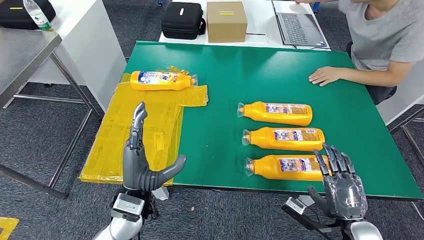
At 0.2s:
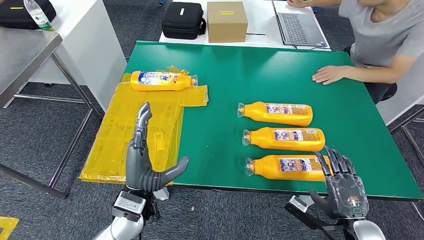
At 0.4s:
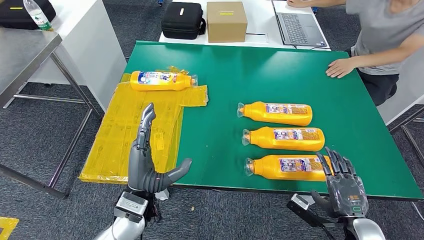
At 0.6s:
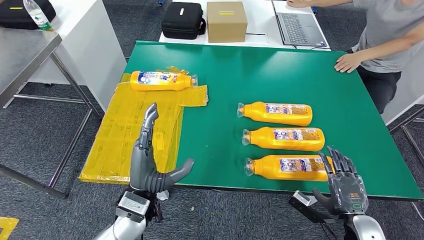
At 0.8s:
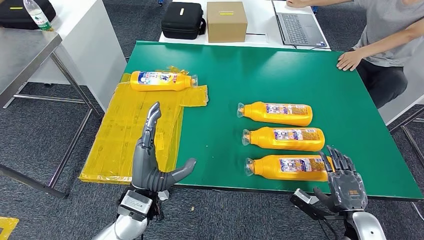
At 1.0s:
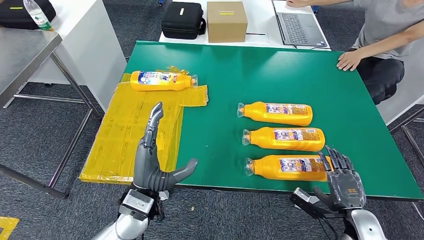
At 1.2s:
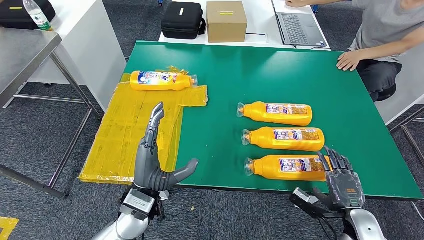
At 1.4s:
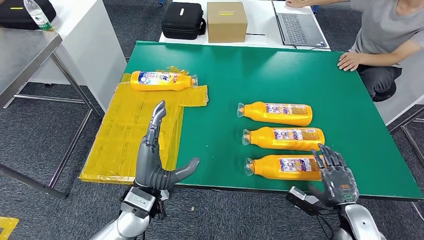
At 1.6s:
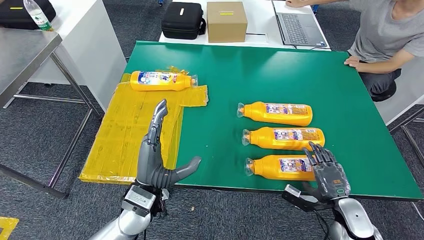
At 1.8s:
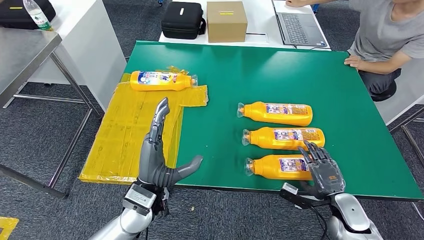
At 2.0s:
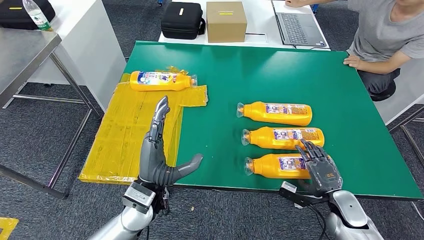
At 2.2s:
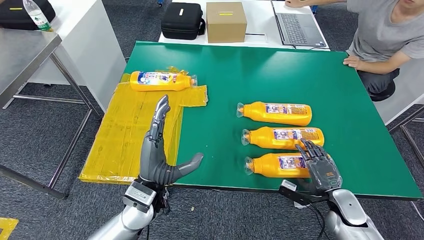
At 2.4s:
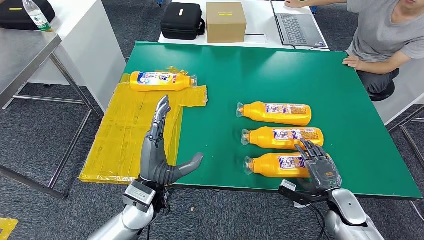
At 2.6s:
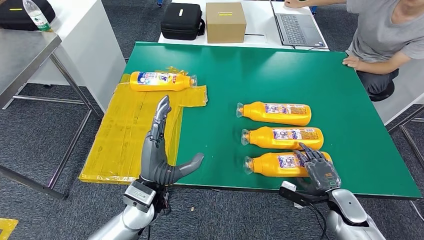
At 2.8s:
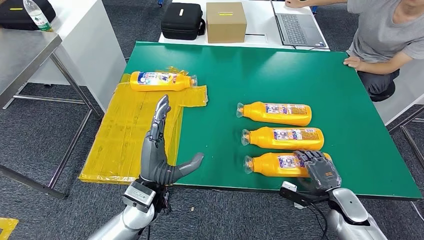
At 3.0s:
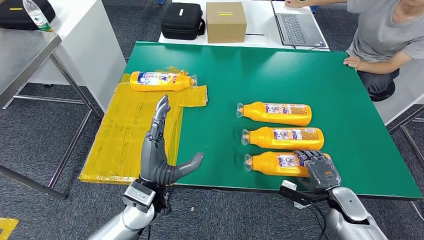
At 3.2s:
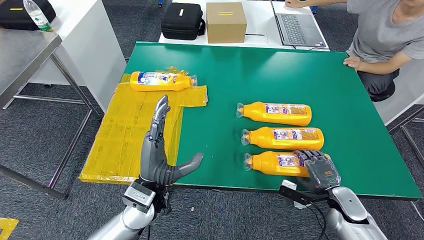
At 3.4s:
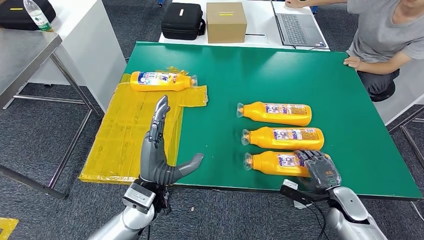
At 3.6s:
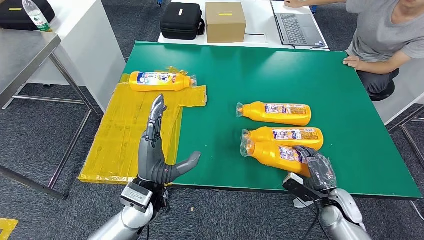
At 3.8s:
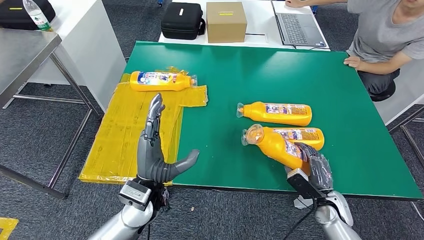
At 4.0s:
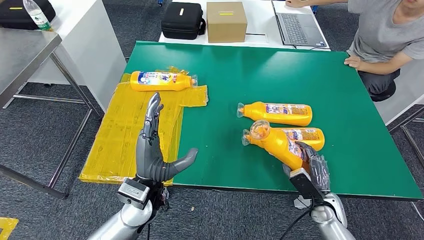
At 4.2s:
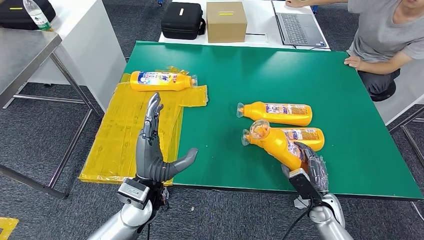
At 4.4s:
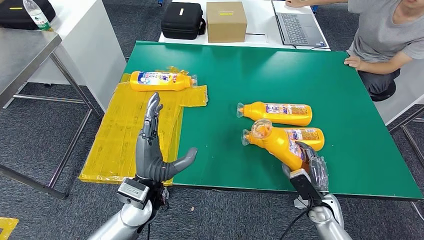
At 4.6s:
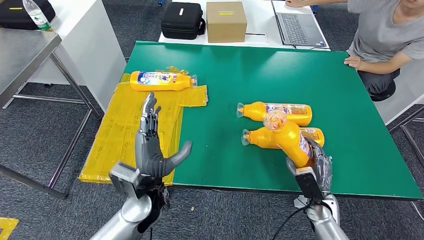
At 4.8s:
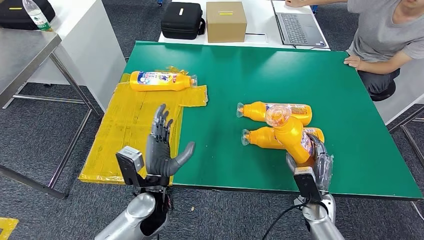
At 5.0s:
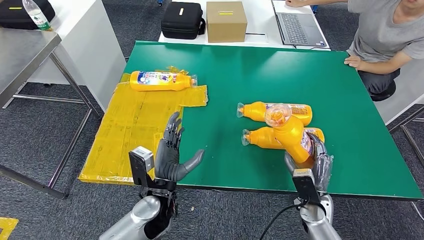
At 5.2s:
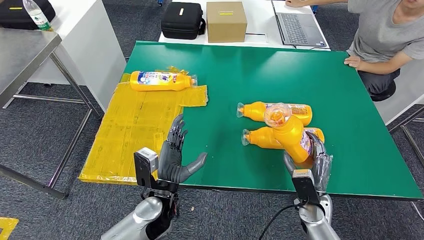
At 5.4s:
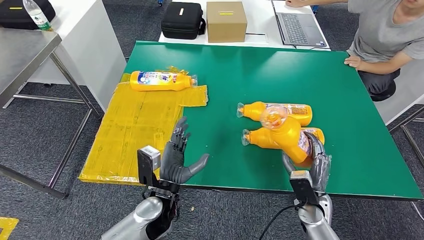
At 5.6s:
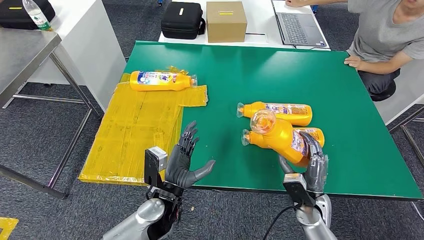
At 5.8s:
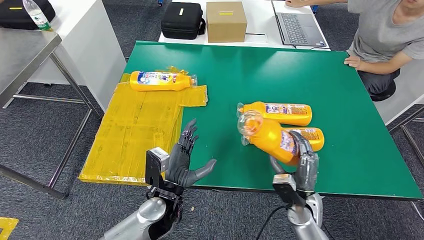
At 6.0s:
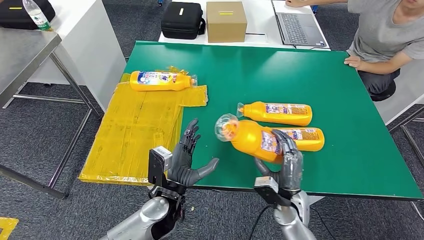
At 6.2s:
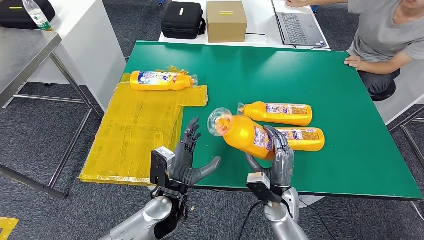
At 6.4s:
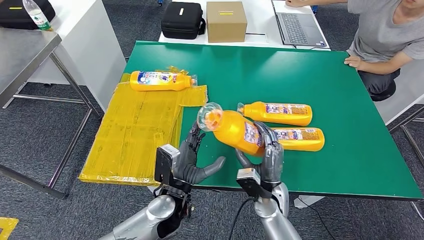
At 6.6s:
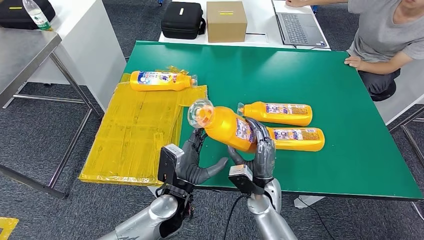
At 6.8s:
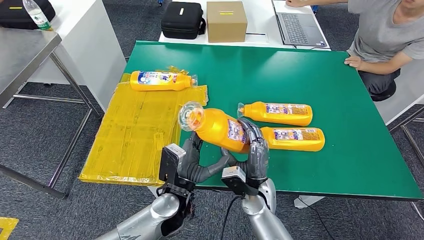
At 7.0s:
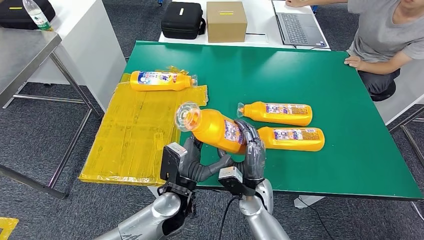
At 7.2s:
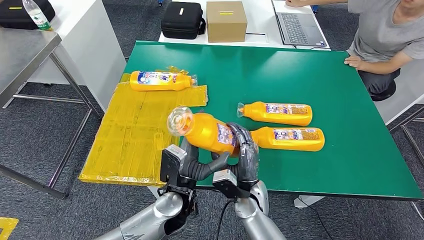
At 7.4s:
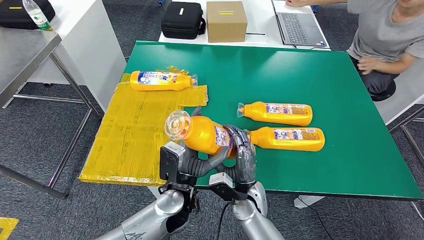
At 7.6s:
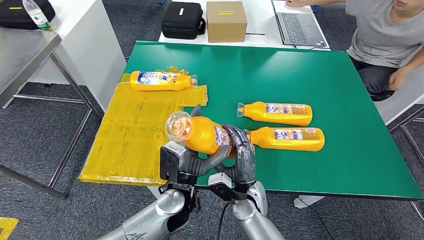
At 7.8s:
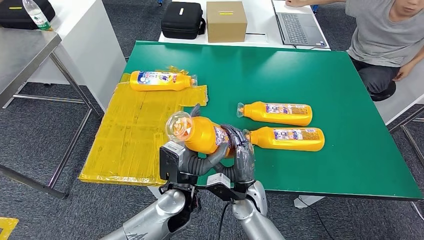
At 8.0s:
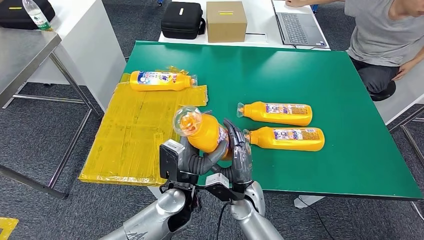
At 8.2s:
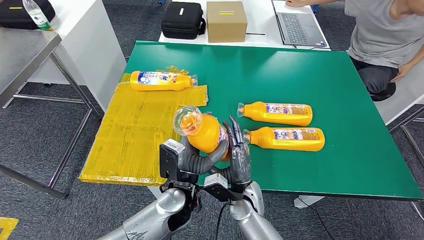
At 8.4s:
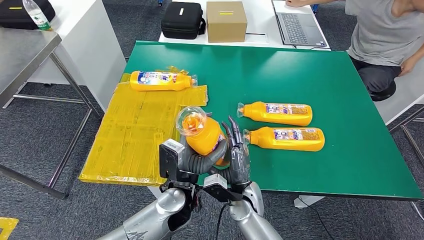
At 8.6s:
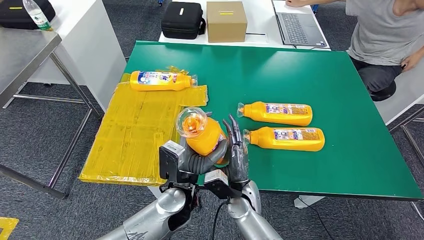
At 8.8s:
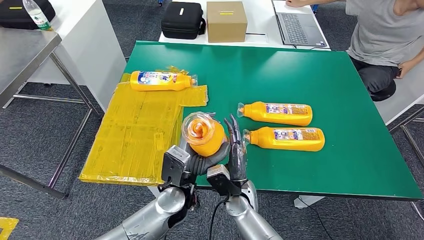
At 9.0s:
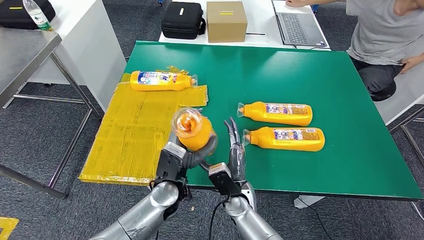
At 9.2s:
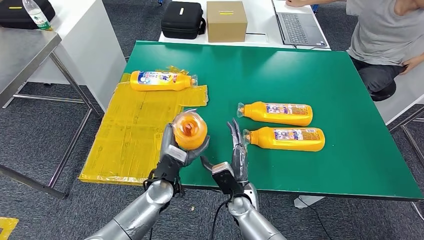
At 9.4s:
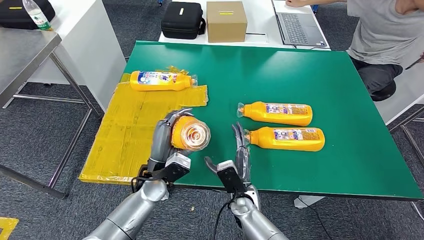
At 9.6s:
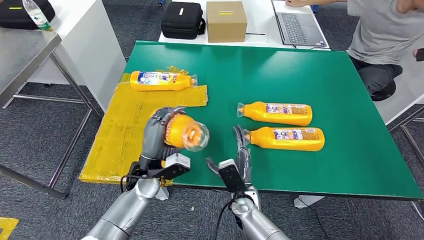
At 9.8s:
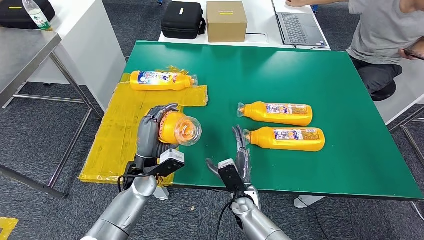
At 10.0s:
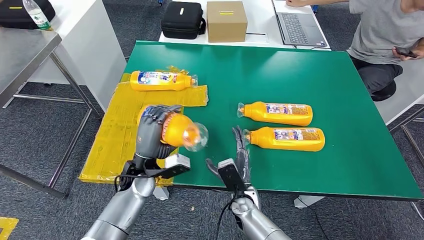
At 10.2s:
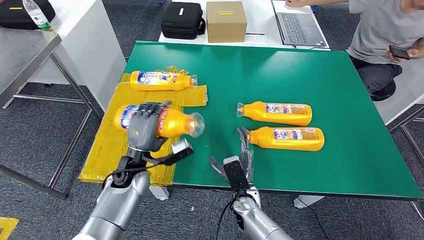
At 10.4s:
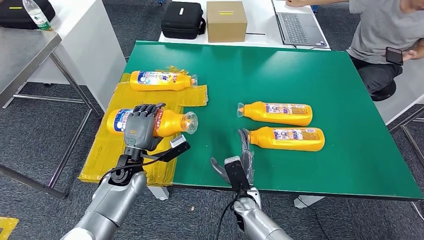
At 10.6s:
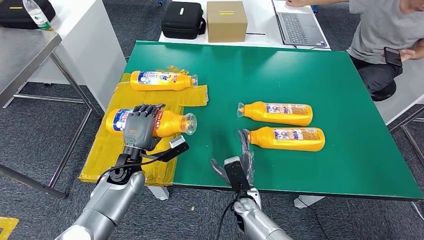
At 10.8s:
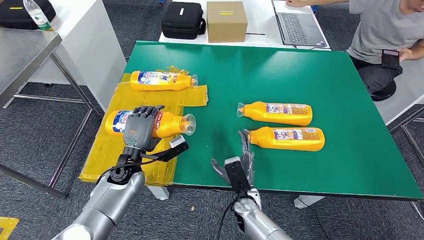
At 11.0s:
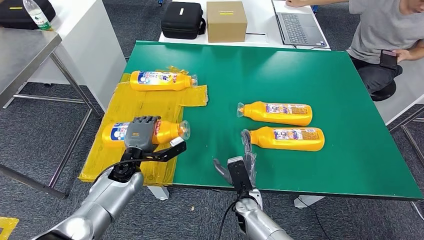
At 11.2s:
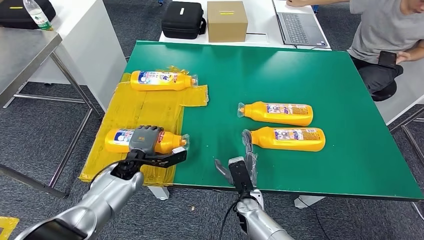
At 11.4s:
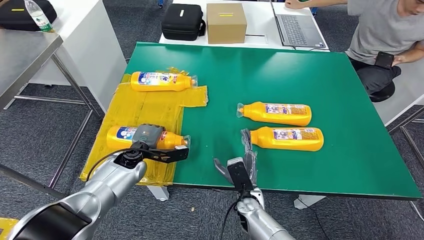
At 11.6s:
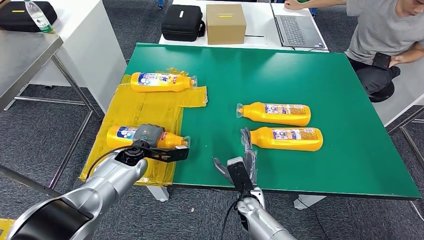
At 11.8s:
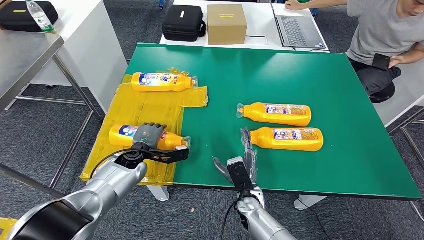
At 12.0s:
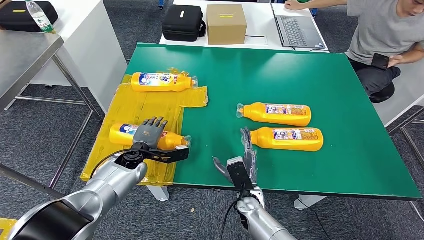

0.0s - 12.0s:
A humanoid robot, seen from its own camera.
Step, 0.0s - 5.0s: Pick up the fast-moving consumer goods bottle from the table.
0.0s - 1.6s: The right hand travels forward and downward by roughly 10 cm.
1.6s - 3.0s: There are only small adjustments of the hands.
3.0s - 4.4s: The right hand shifts by approximately 5 cm.
4.4s - 6.0s: The right hand goes approximately 10 cm to the left. Meanwhile the left hand changes place by about 5 cm.
6.0s - 7.6s: The right hand shifts approximately 10 cm to the left.
7.6s - 9.0s: The hands stay close to where they were, moving slightly.
9.0s - 10.4s: The left hand heads to the left and forward, covering roughly 15 cm.

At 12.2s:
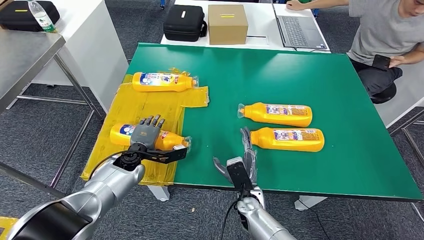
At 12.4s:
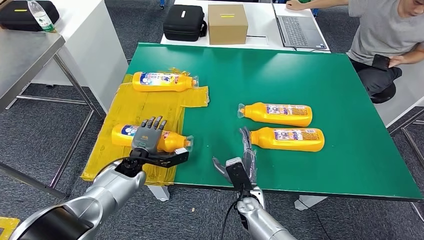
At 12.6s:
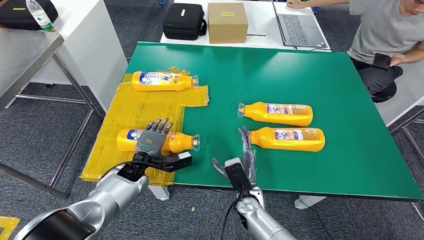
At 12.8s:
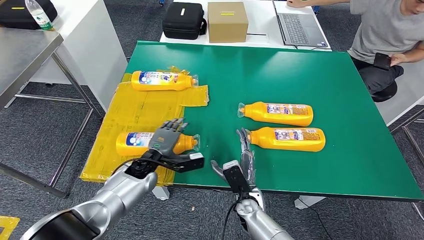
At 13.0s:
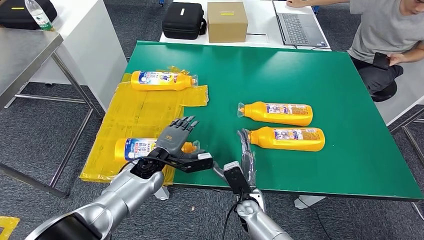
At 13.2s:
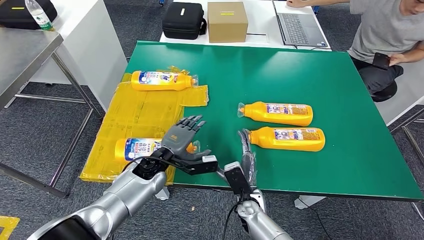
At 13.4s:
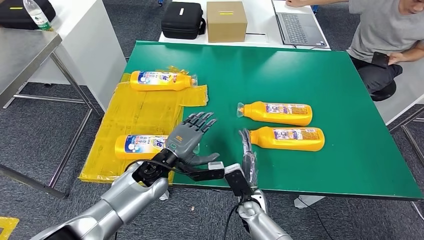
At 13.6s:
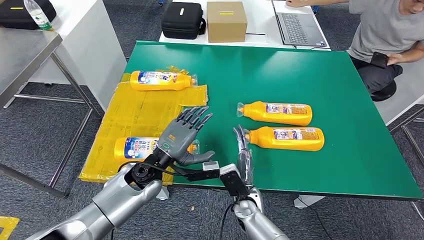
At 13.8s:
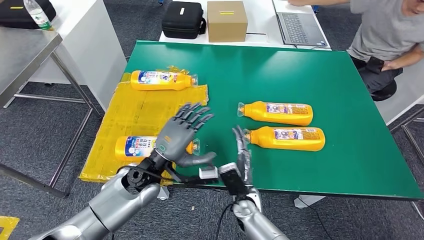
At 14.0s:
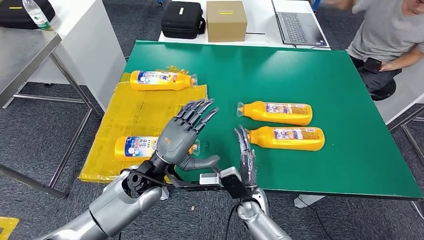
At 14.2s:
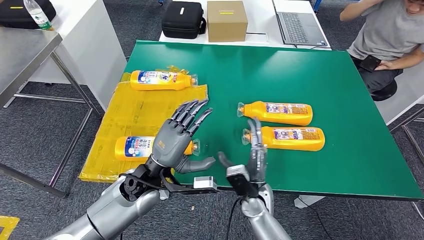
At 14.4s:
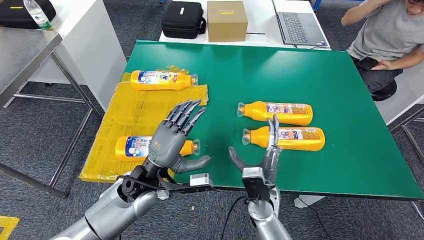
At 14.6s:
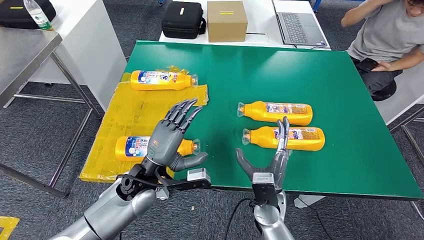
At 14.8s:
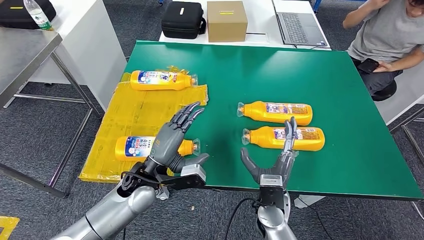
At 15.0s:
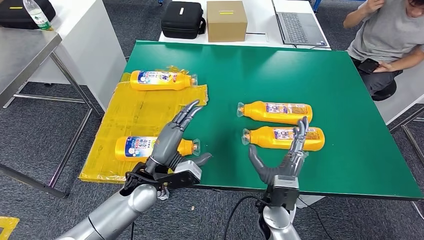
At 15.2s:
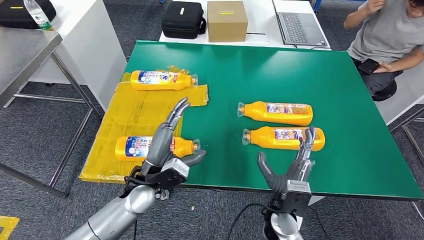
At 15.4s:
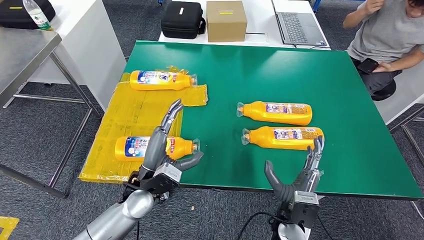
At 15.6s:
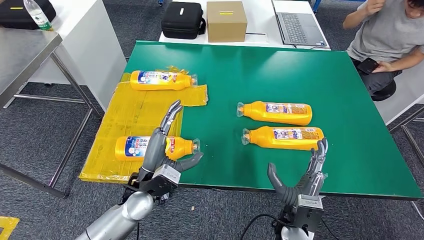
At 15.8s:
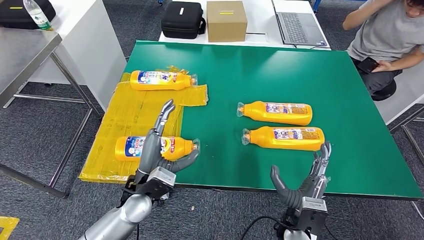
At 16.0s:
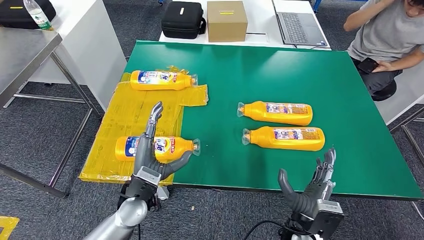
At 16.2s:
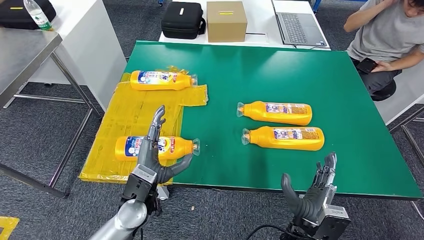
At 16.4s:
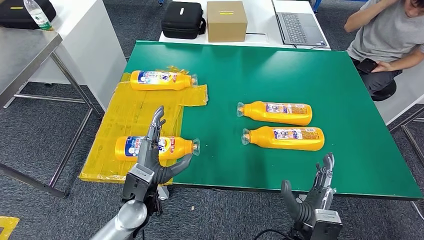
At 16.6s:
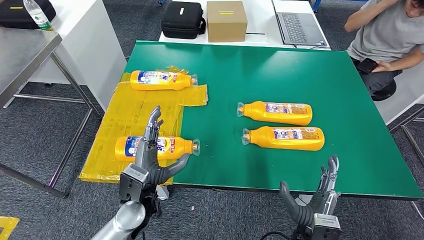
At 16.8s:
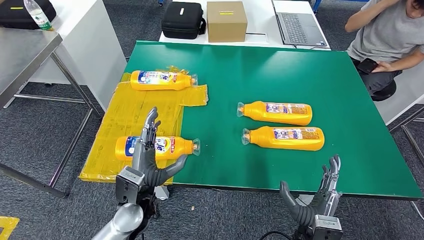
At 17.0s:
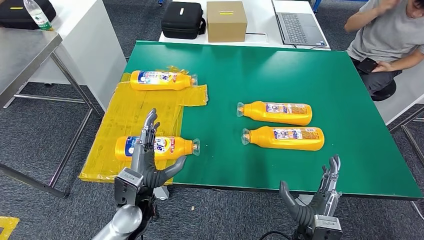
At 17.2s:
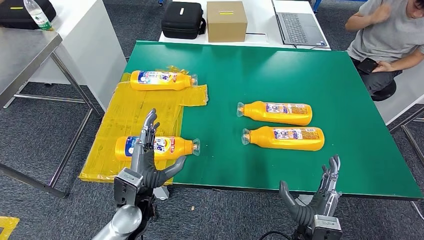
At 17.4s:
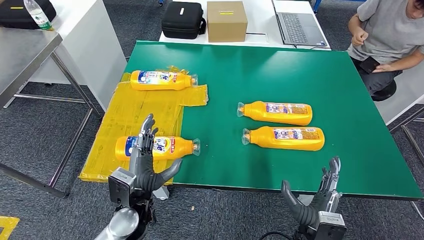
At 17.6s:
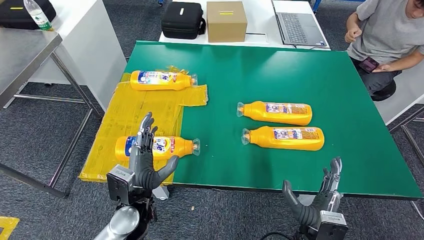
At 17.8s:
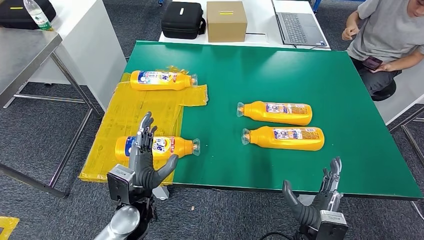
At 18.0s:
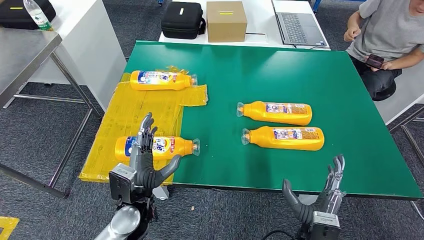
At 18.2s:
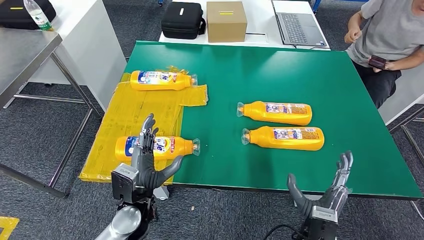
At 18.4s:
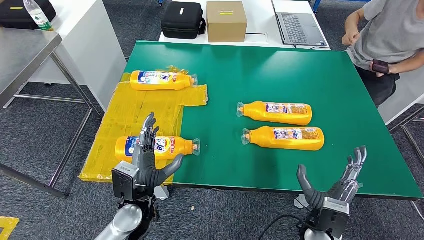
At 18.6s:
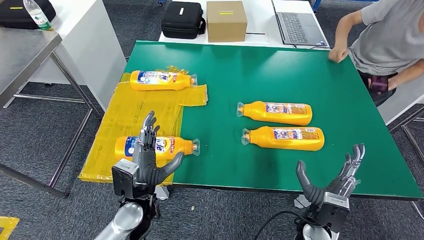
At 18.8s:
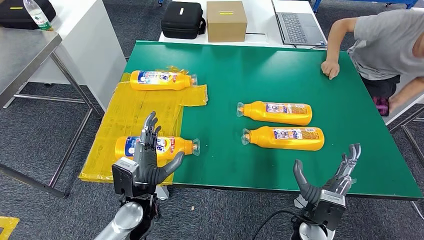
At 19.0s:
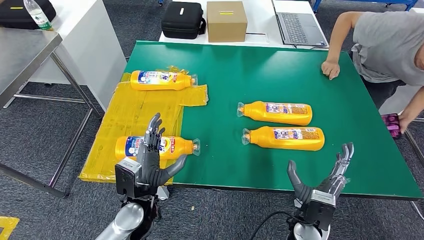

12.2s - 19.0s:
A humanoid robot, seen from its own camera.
13.6s - 15.0s: The right hand moves upward, some 10 cm.
15.0s - 16.2s: The right hand moves backward and to the right, roughly 10 cm.
16.2s - 17.6s: The hands make only small movements.
17.6s - 19.0s: The right hand shifts about 5 cm forward.
